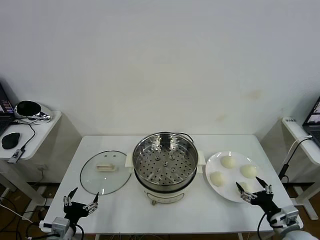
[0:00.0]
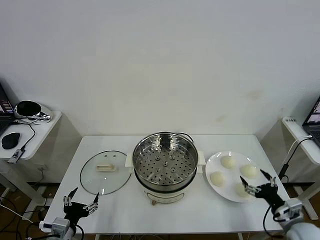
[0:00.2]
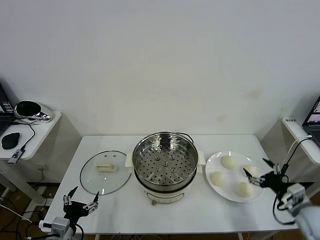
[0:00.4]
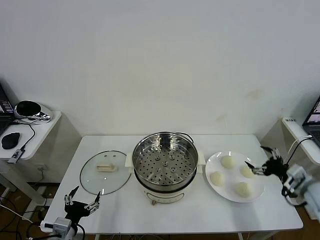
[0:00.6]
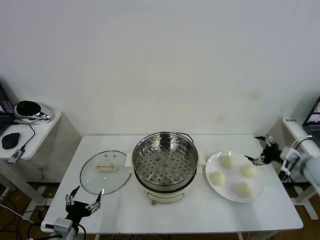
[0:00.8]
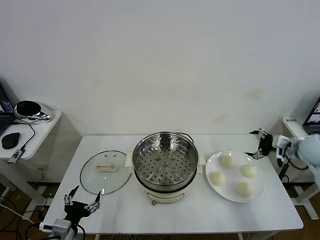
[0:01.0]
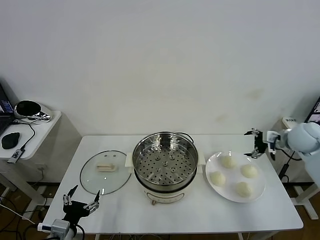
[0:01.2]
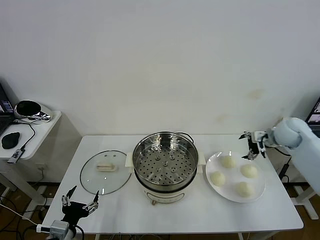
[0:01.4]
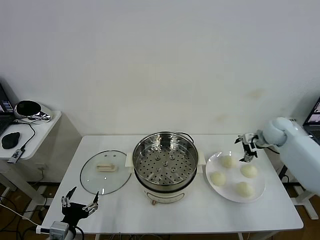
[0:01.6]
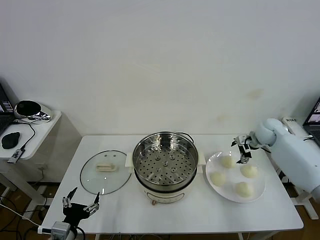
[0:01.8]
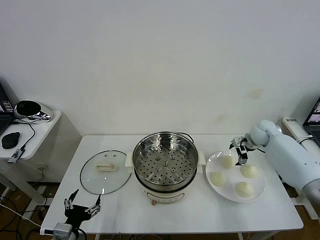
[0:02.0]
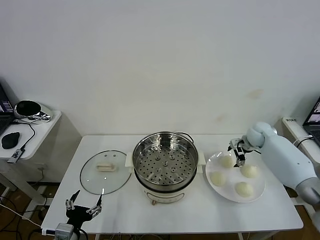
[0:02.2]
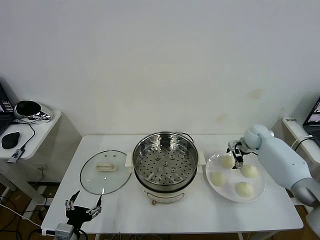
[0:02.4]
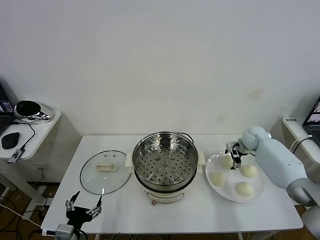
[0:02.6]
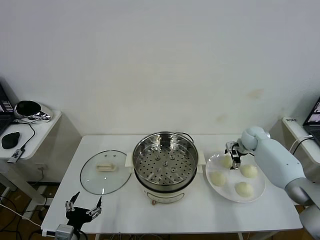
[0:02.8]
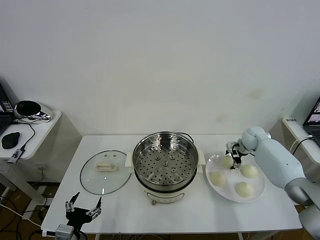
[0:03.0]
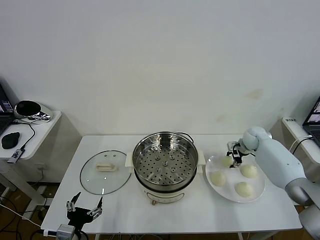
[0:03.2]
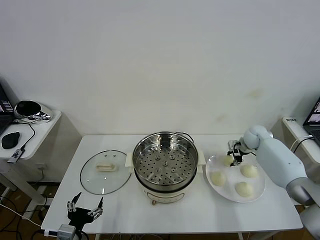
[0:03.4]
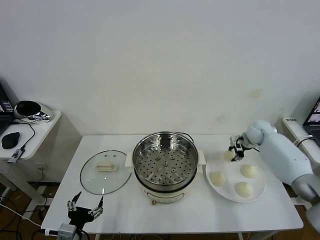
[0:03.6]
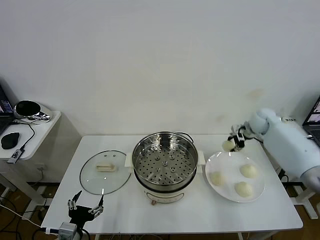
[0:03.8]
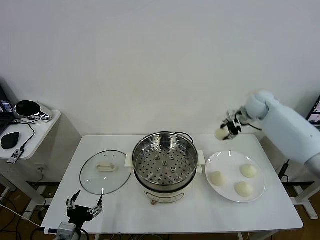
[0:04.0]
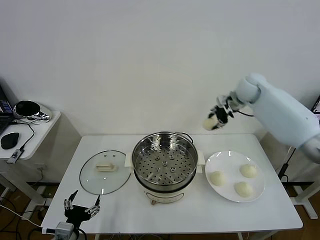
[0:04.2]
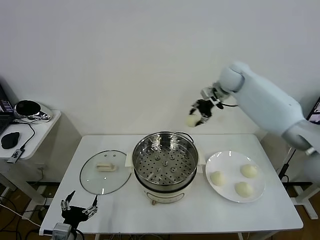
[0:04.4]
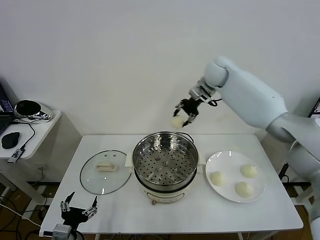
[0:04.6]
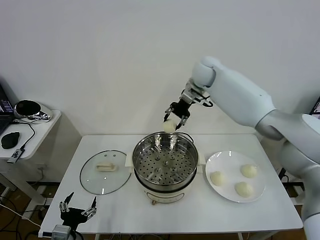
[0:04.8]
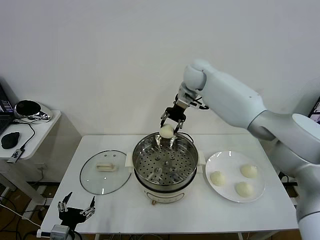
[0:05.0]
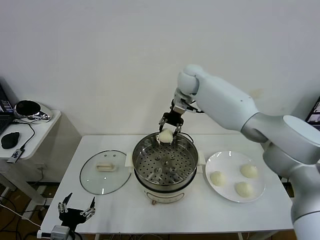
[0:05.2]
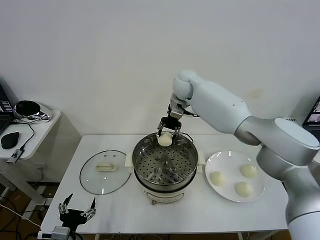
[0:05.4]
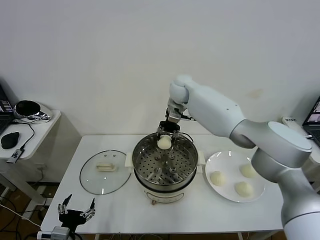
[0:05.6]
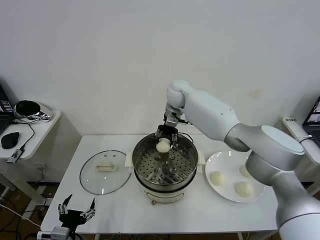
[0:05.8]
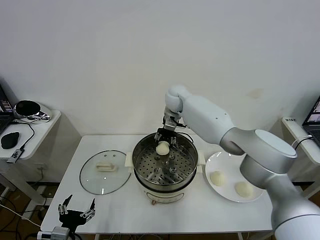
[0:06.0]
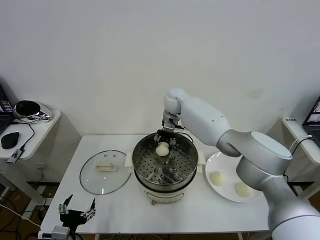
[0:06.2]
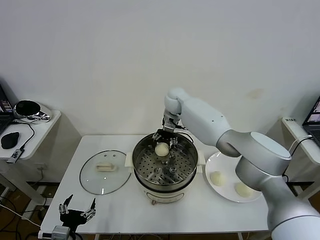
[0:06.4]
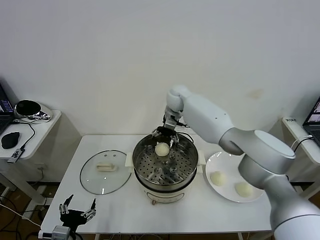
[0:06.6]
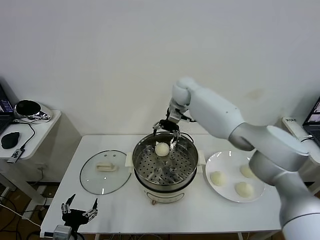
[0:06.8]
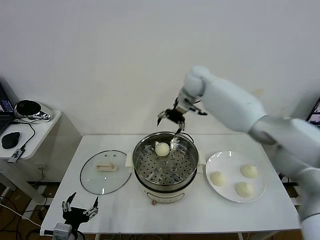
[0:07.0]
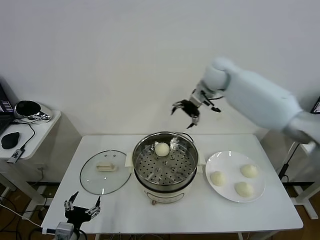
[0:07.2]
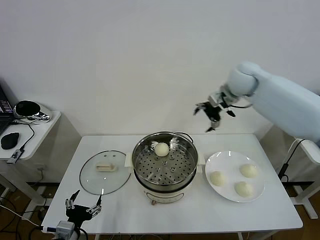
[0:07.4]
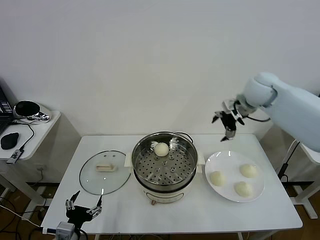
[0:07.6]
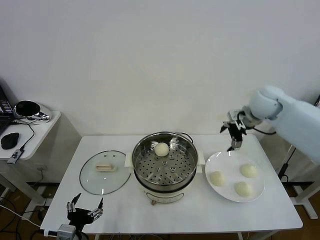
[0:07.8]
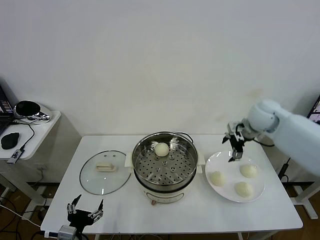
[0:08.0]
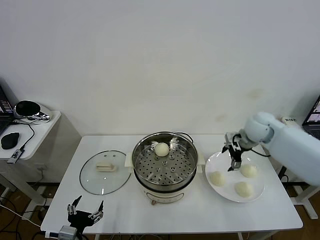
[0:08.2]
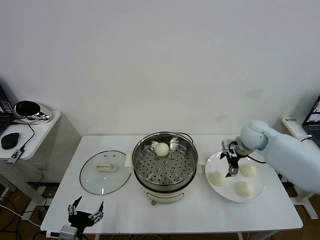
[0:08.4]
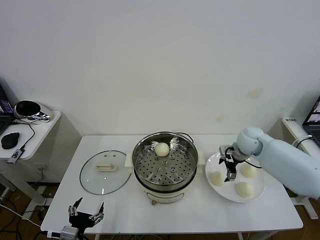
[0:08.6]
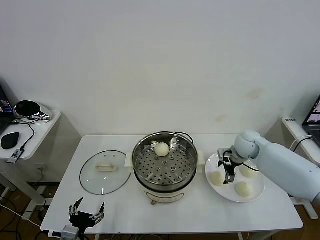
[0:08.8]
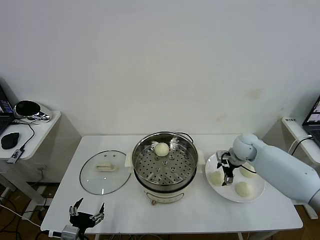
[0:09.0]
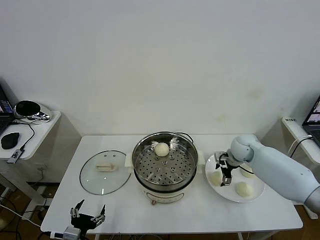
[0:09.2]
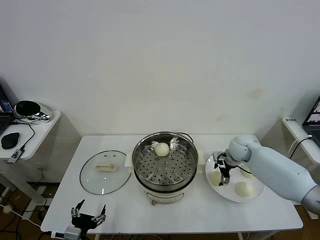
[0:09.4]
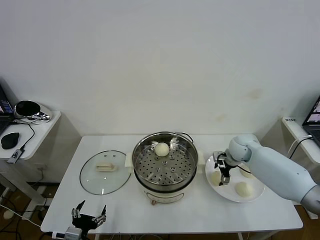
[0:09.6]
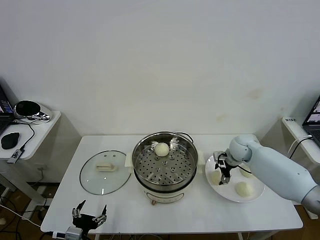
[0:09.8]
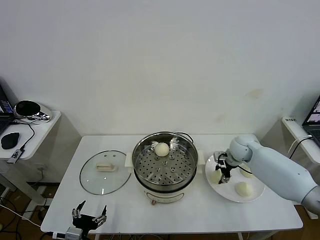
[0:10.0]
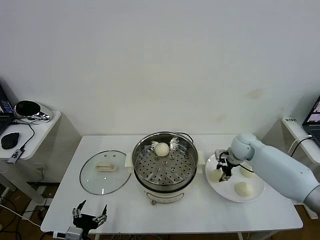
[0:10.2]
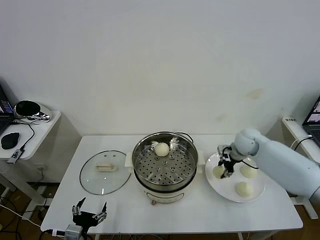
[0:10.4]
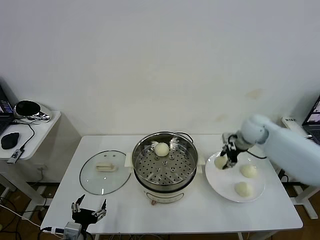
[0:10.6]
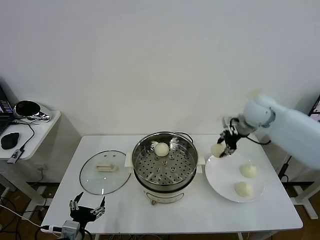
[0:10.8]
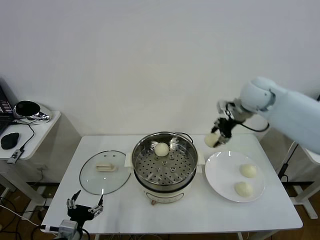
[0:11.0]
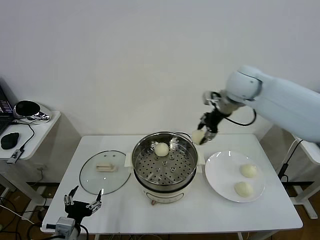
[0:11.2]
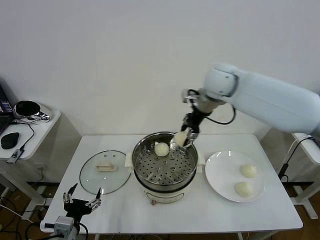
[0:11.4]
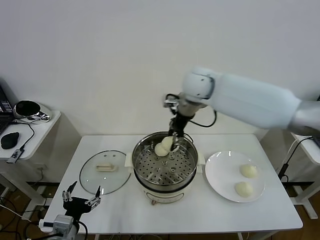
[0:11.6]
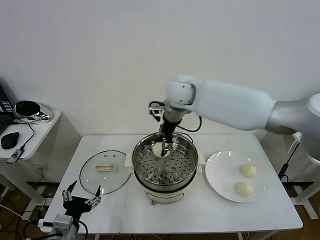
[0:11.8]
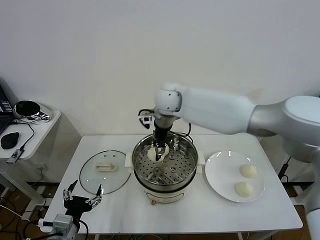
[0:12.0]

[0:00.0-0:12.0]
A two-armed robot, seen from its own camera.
Task of the whole recording: take steamed baozi put them in steamer then cover it.
Step, 0:00.0 to 0:03.2: Grasp the baozi in the plate with right gripper.
Step, 0:03.4 to 0:06.6: Place the baozi on the steamer with right gripper.
Step, 0:07.0 to 0:10.0: Grasp the baozi in the plate with right gripper.
0:01.6 to 0:03.0: The right gripper travels downward by roughly 5 cm, and closes up.
0:03.0 to 0:04.4: The right gripper travels upward and to the left by roughly 30 cm, and closes its fingers.
0:04.4 to 0:06.0: The right gripper heads to the left and downward, covering about 20 cm.
0:06.0 to 0:07.6: The right gripper shifts roughly 25 cm to the right, and opens.
0:07.6 to 0:09.0: The right gripper moves downward, some 20 cm.
0:09.0 to 0:10.4: The right gripper heads upward, covering approximately 5 cm, and closes its fingers.
0:10.4 to 0:12.0: The right gripper goes some 30 cm to the left. Meanwhile the left gripper moves upward, roughly 5 cm.

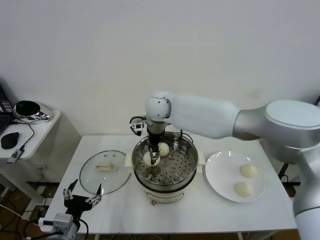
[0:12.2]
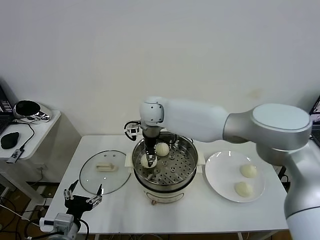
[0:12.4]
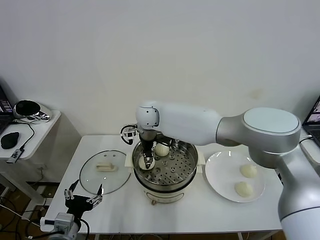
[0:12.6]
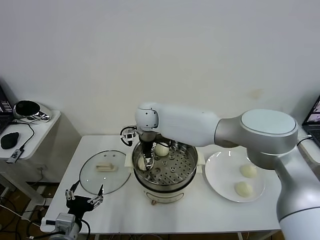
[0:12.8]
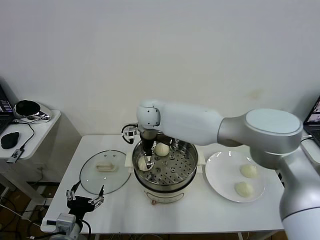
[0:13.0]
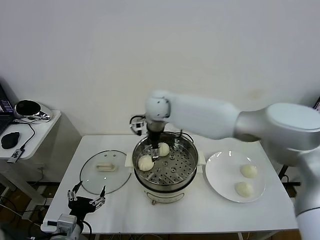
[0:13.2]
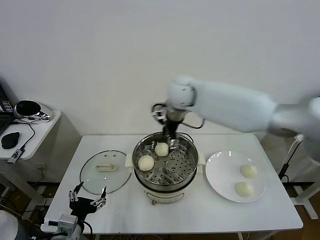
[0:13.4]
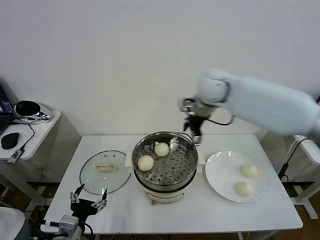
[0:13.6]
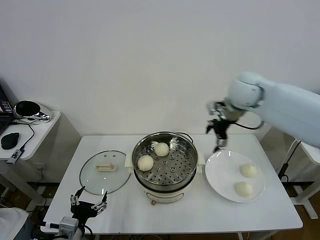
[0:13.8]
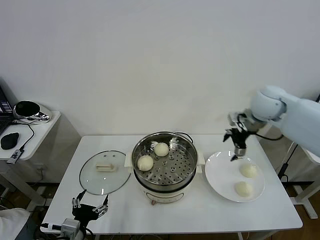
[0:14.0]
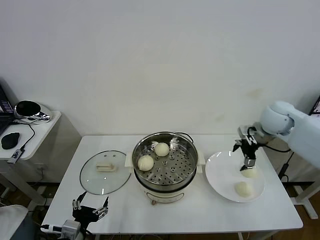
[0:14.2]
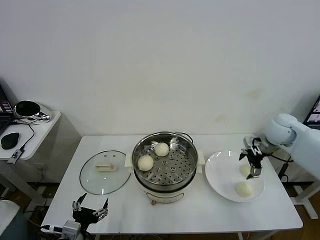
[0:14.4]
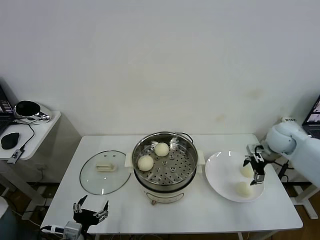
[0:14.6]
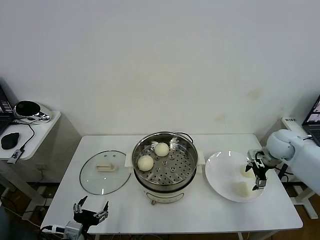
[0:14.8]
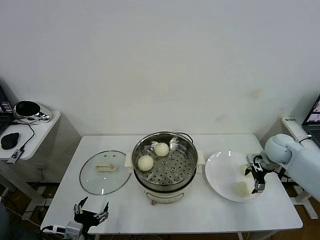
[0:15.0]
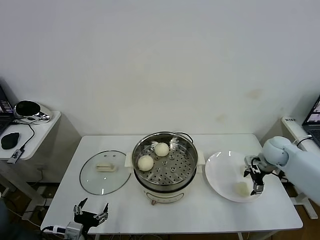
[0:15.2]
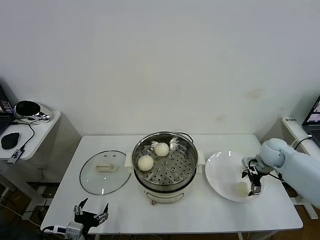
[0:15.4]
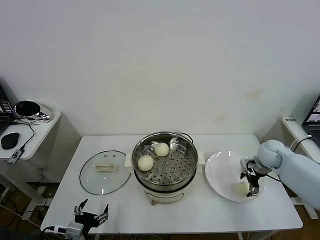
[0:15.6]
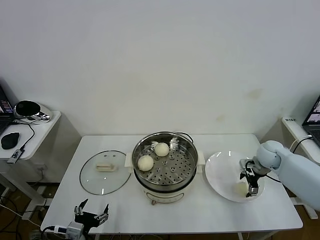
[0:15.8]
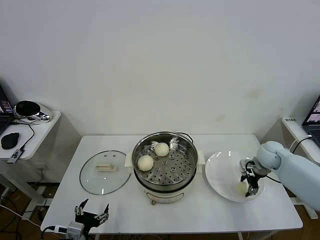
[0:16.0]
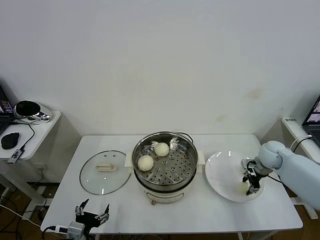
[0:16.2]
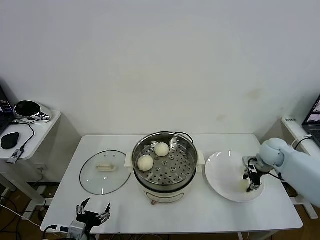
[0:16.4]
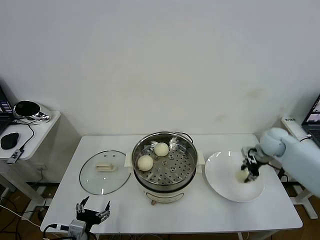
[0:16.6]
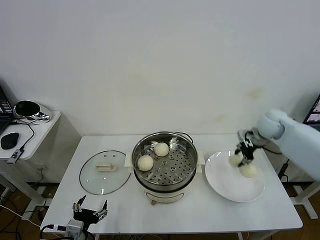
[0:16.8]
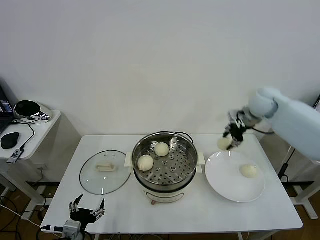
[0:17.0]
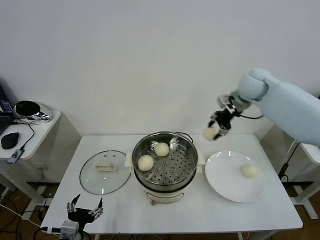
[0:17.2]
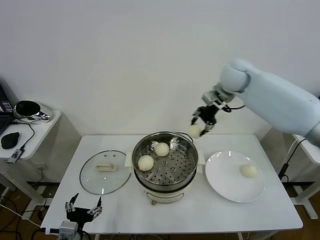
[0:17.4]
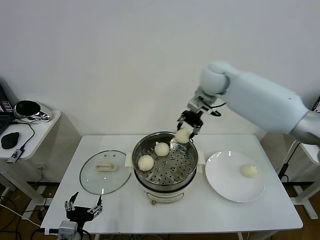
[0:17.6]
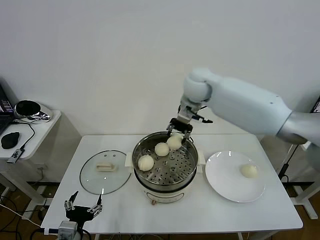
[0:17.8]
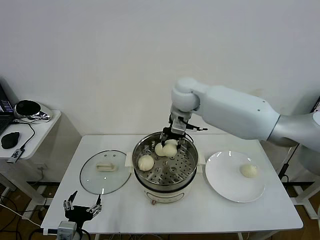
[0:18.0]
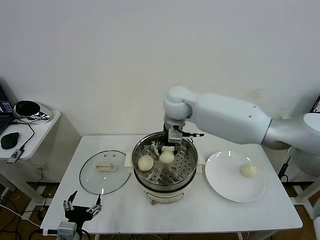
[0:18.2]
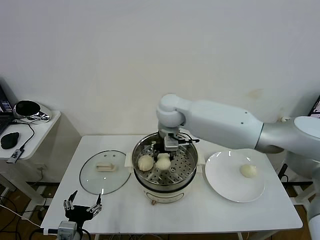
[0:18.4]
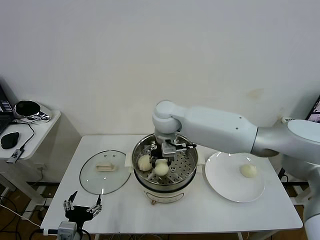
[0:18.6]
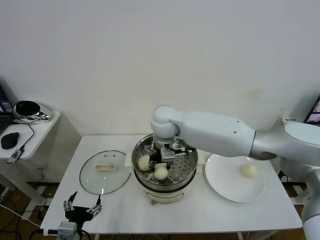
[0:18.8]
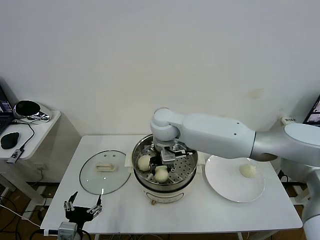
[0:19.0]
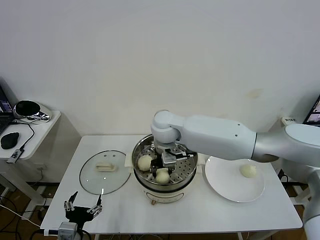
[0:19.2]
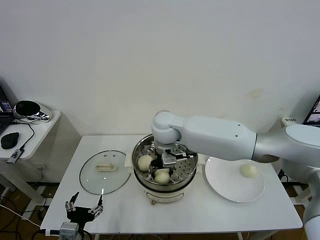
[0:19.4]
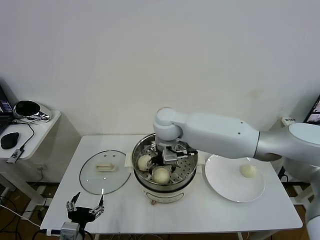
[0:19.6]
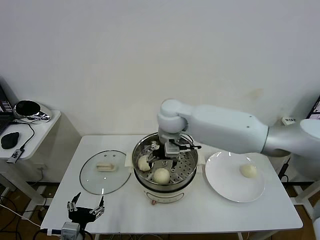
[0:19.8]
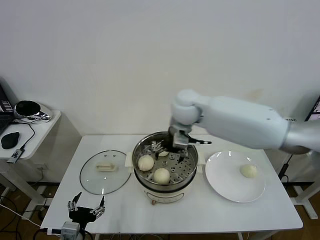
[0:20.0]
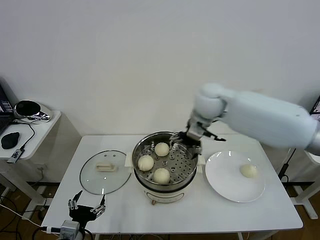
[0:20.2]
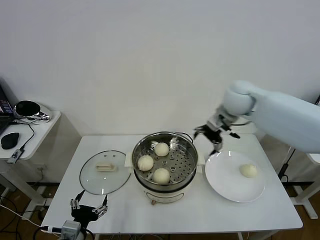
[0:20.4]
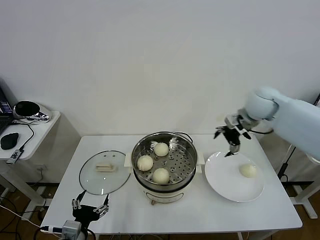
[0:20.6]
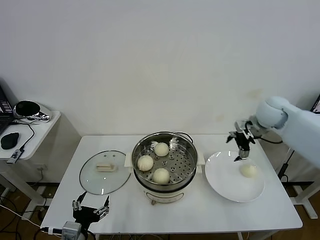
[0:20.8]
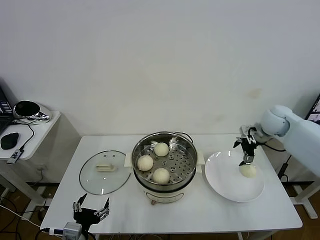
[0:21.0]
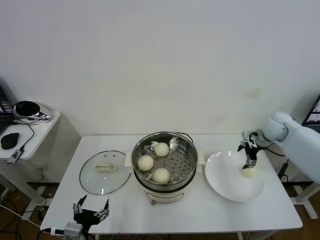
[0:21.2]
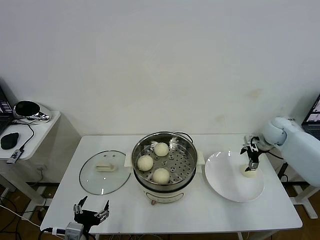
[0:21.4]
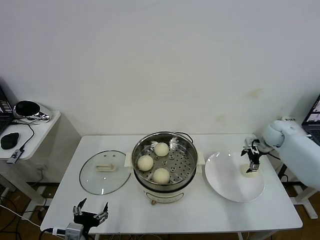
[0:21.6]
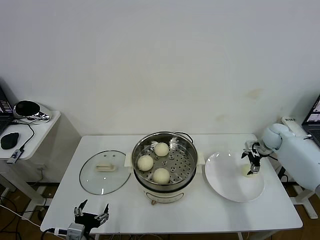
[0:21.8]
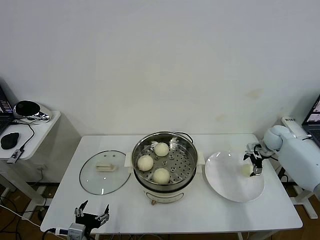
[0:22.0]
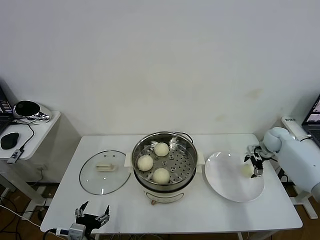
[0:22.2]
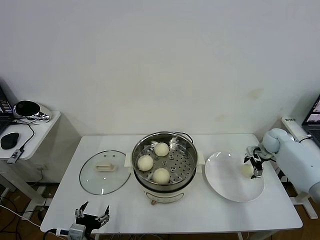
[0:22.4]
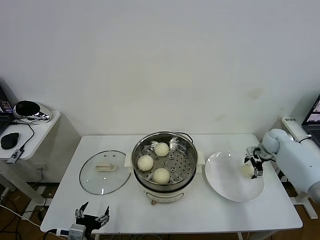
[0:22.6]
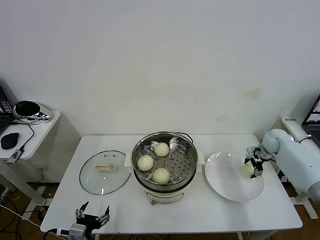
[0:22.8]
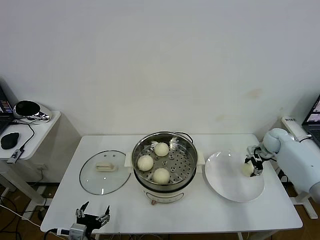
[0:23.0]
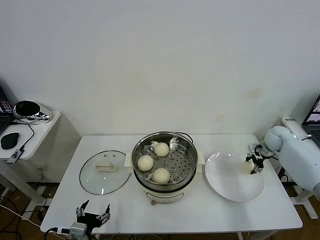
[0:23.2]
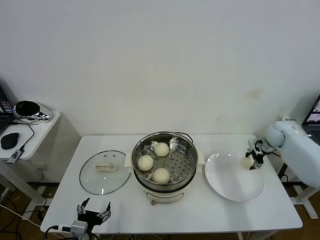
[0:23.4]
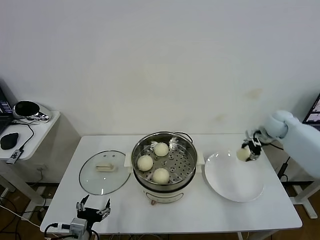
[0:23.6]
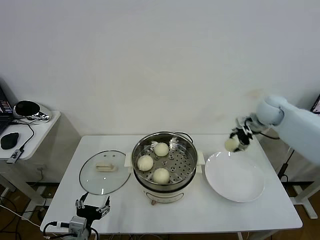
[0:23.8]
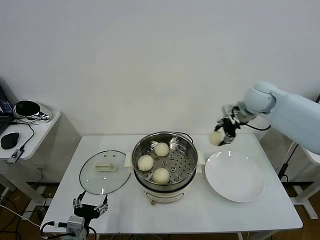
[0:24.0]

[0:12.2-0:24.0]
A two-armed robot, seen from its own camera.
Task of the whole recording: take steamed baozi put them in steamer then cover it.
Step, 0:13.2 to 0:16.0: Grasp the baozi in the plate with right gripper.
Step, 0:16.2 to 0:19.6: Place the baozi on the steamer with right gripper.
Step, 0:19.8 to 0:23.0: Grasp the baozi in the plate with right gripper.
0:12.2 to 0:13.6: The right gripper goes some 20 cm to the right, and opens up.
0:13.6 to 0:15.2: The right gripper heads downward and to the right, covering some 30 cm.
0:15.2 to 0:16.6: The right gripper moves upward, approximately 5 cm, and closes up.
0:16.6 to 0:18.2: The right gripper shifts some 35 cm to the left.
0:18.2 to 0:19.6: The right gripper ends up roughly 5 cm from where it was, and opens its fingers.
0:19.6 to 0:21.0: The right gripper travels to the right by some 35 cm.
0:21.0 to 0:22.6: The right gripper travels downward and to the right by approximately 15 cm.
0:22.6 to 0:24.0: The right gripper shifts some 30 cm upward and to the left, and closes.
